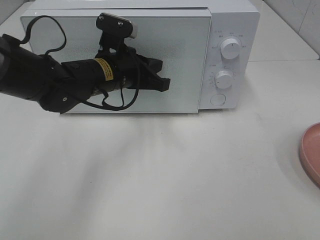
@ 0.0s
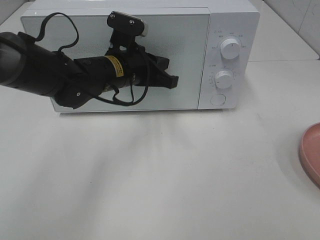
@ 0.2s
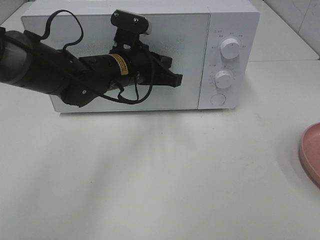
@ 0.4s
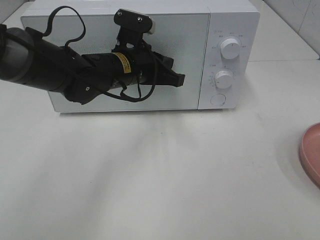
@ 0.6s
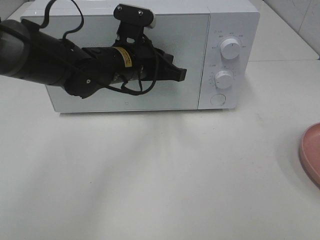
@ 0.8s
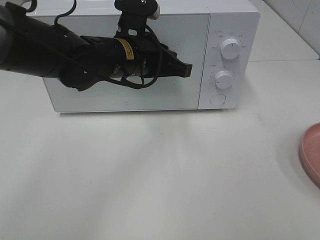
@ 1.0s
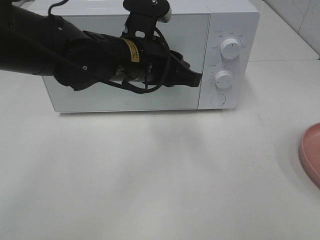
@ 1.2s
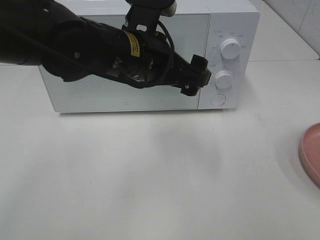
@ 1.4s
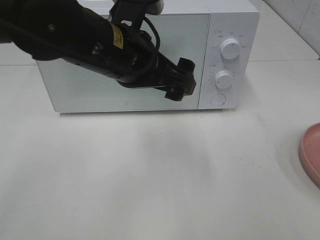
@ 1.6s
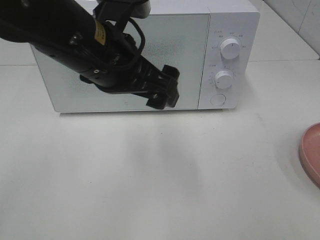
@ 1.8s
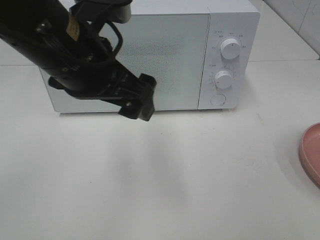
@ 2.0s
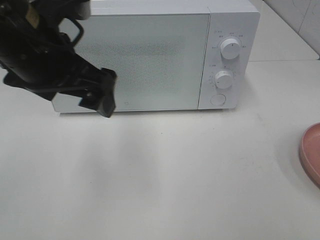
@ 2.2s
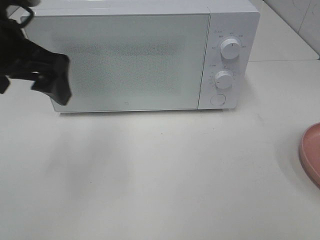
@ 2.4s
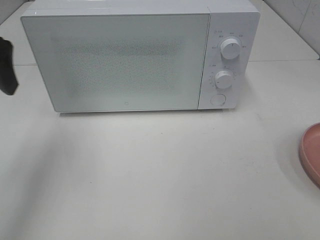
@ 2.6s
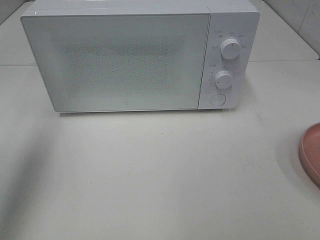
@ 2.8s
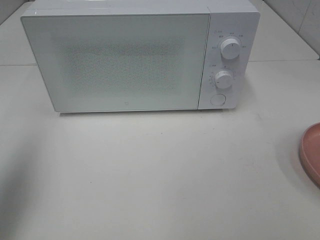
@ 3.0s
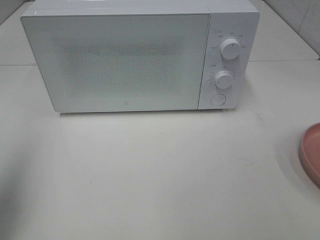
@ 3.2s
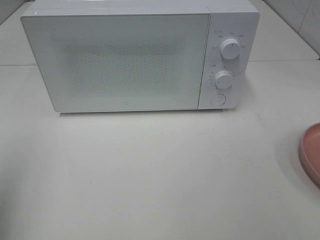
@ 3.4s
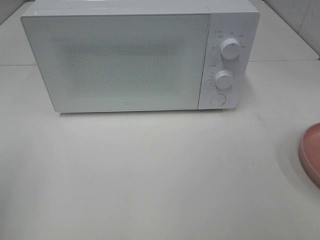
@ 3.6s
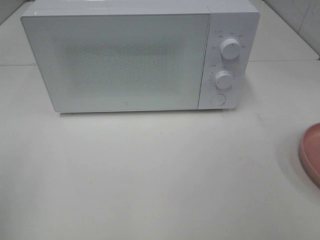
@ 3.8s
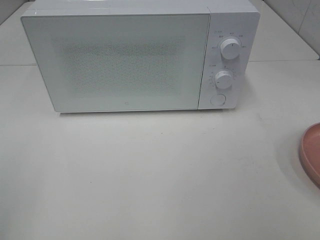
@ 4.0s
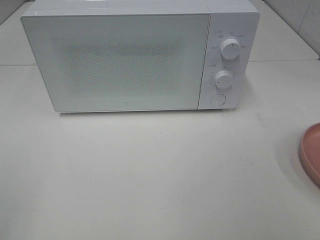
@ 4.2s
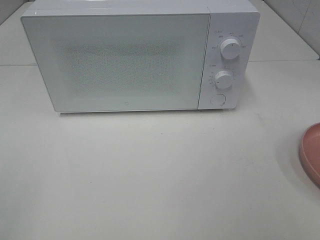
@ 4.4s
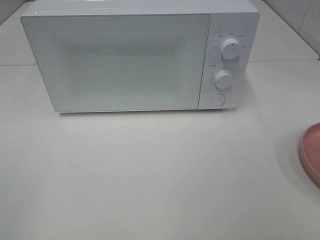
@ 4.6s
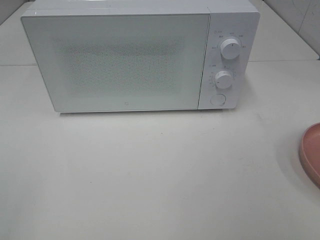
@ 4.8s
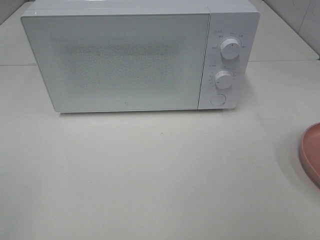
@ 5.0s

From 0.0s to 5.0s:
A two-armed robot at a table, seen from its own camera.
Task of the whole recording: Heat the burger.
From 0.0s to 1.6s: The left gripper goes roughly 15 cm backward and upward, and opens up.
From 1.6s to 3.4s: The left gripper heads to the left and backward, covering some 30 cm.
From 3.4s to 5.0s: The left gripper moves backward, approximately 10 cm.

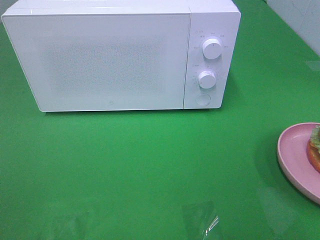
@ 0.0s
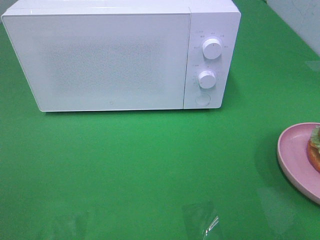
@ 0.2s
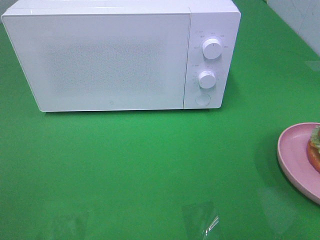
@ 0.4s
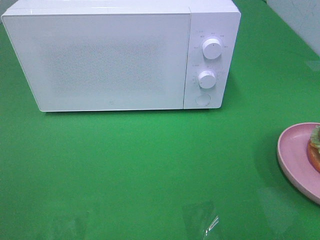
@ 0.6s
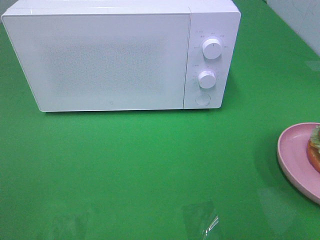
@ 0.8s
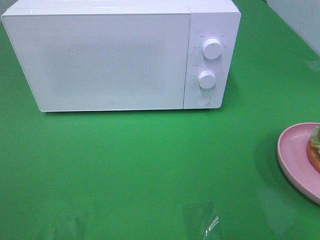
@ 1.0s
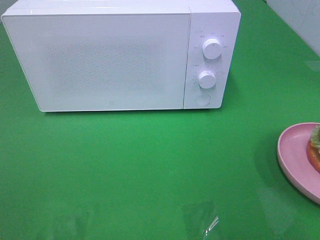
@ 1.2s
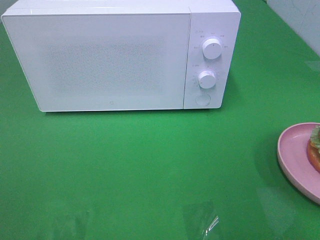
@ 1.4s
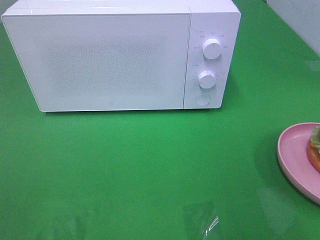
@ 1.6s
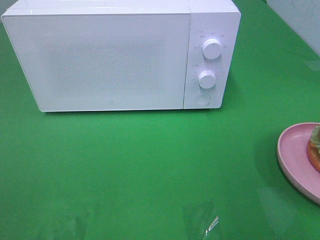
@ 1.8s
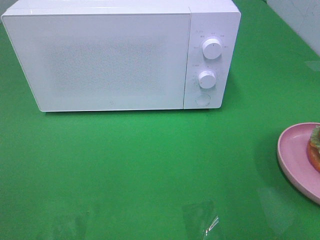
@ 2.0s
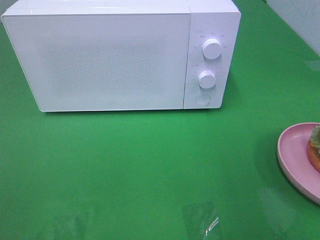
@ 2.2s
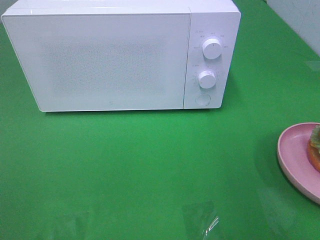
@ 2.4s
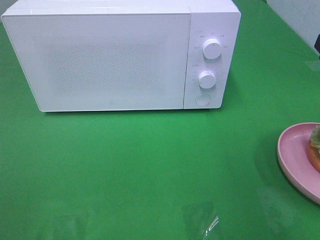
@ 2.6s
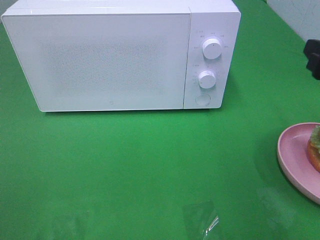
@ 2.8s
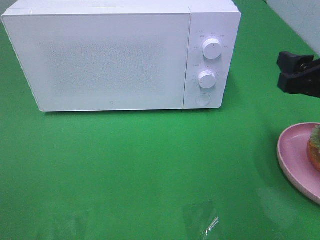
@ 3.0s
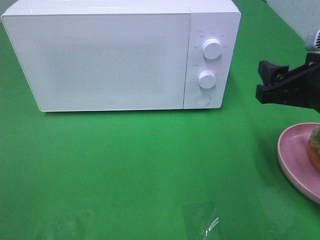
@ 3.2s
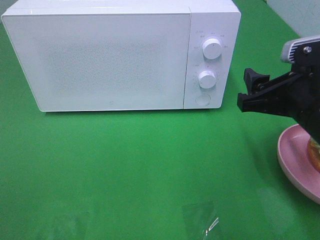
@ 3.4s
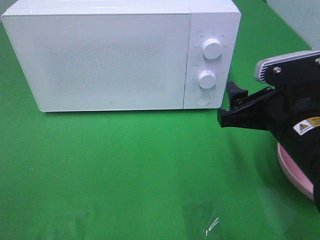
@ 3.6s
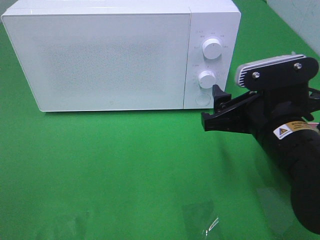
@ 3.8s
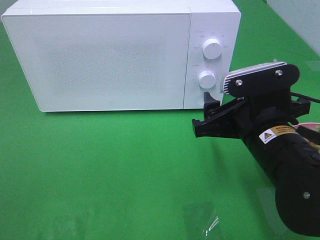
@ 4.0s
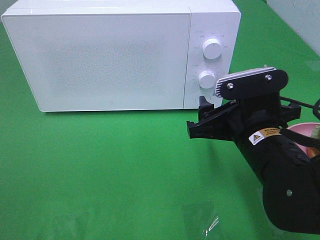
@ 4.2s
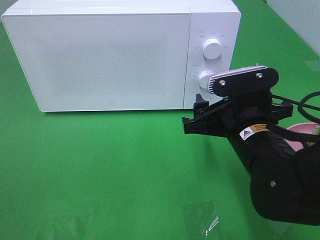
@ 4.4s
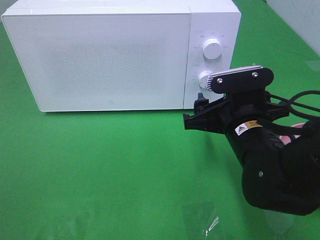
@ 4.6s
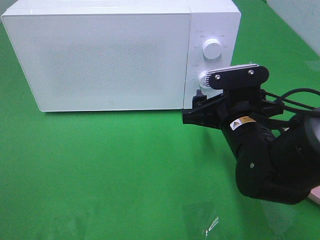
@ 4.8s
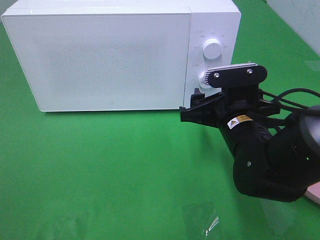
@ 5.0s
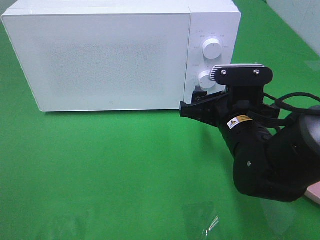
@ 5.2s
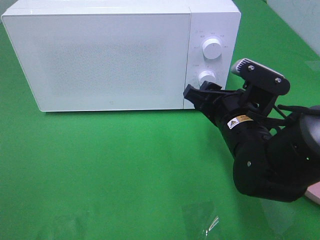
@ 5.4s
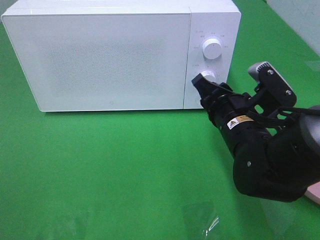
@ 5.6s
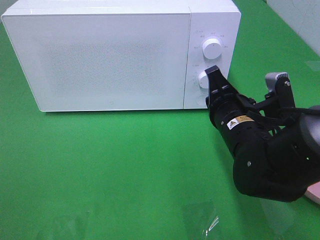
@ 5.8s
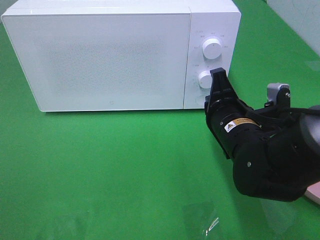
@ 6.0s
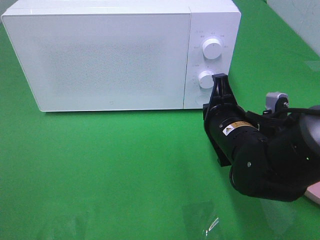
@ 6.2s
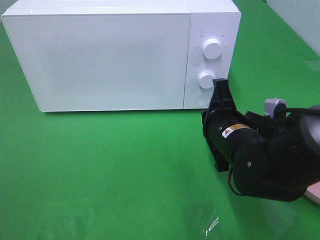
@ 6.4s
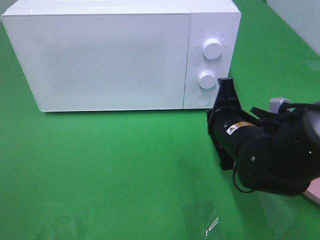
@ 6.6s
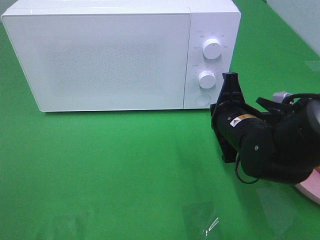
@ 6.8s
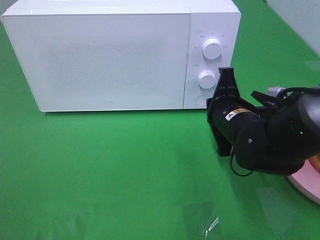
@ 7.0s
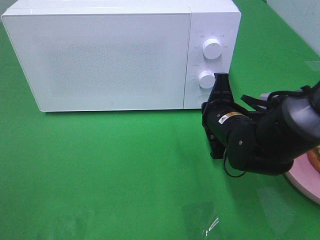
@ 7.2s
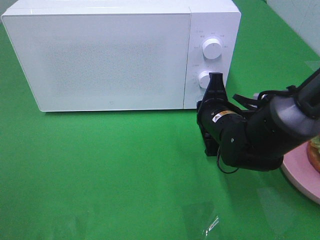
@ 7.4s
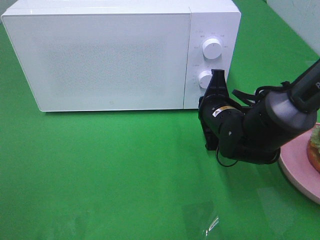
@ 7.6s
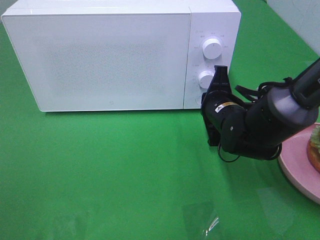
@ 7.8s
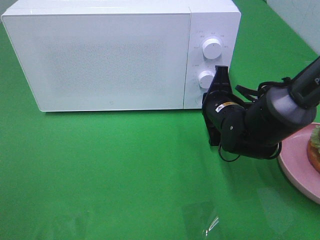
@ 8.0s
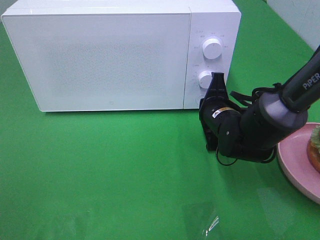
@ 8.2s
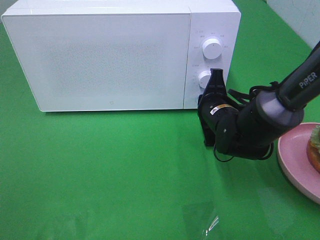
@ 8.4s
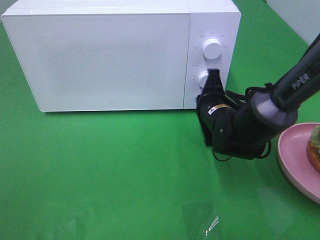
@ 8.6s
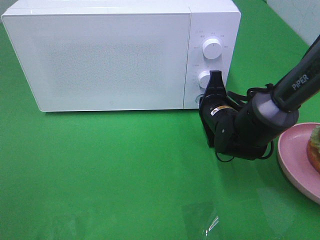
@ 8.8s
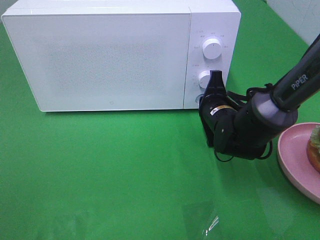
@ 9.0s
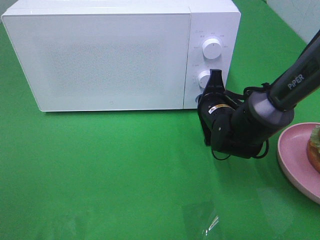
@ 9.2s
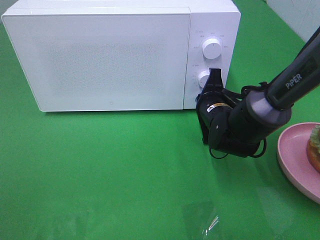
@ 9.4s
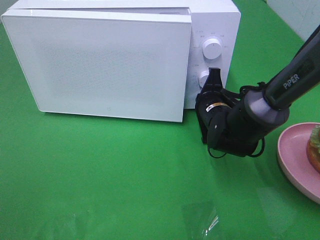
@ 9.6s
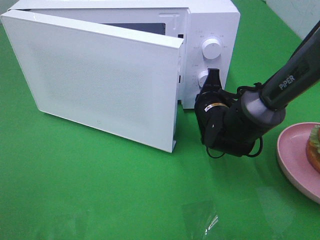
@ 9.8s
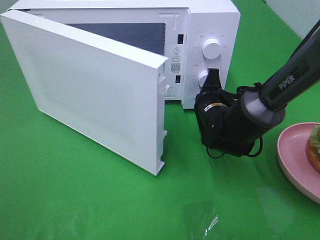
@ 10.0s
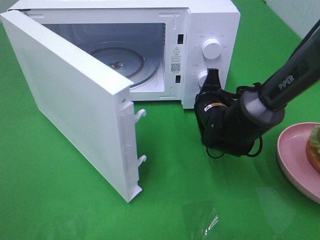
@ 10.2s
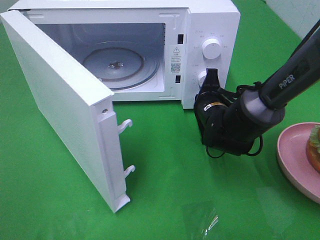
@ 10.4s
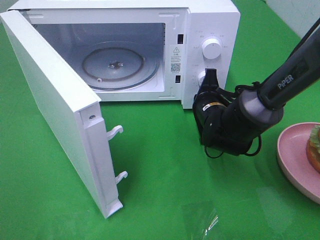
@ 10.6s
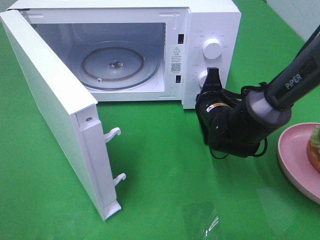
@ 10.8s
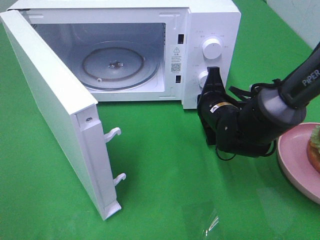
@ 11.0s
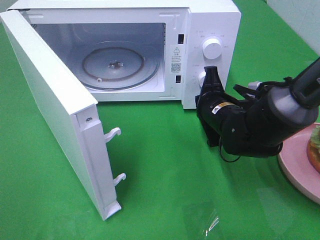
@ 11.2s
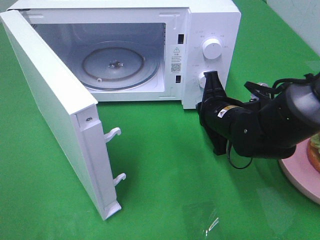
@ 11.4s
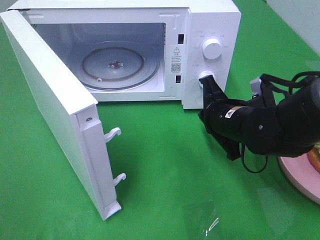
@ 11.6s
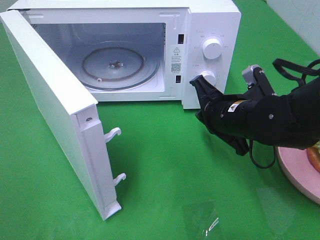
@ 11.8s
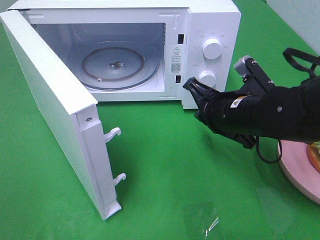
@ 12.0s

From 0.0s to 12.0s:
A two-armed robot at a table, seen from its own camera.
Task of the whole recording: Heat the burger.
Step, from 0.0s to 11.4s: Right hand: press the switch.
From 1.6s to 3.0s: The right gripper moves forward and downward, approximately 15 cm.
From 3.0s to 4.4s: The right gripper shifts some 15 cm to the left and downward.
From 4.4s to 6.0s: The right gripper closes.
From 6.0s to 7.6s: The right gripper heads forward, covering roughly 5 cm.
From 7.6s to 9.0s: The grippers move only a little.
From 10.4s to 12.0s: The right gripper heads backward and upward, covering some 10 cm.

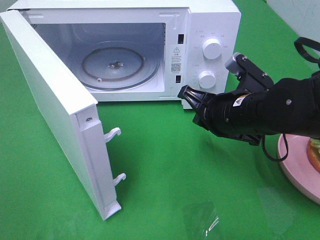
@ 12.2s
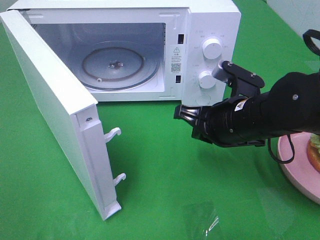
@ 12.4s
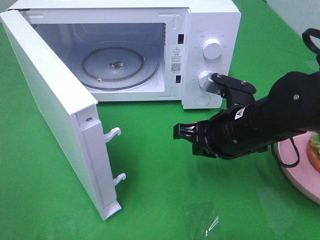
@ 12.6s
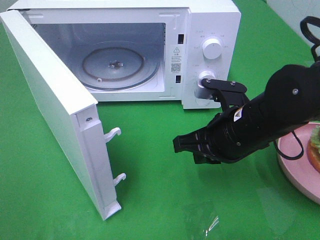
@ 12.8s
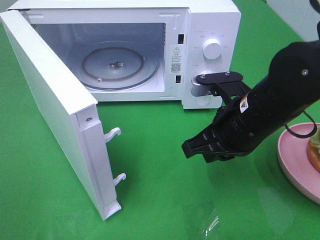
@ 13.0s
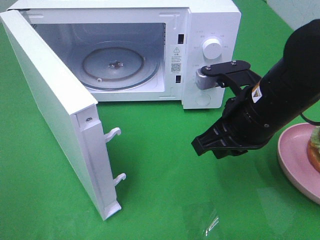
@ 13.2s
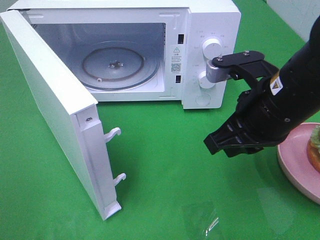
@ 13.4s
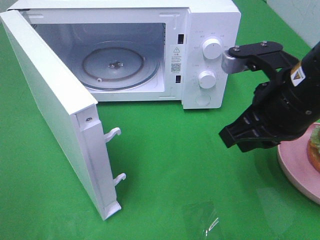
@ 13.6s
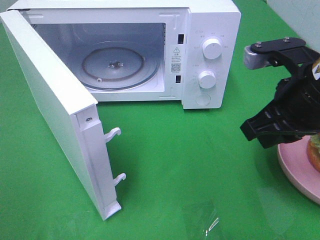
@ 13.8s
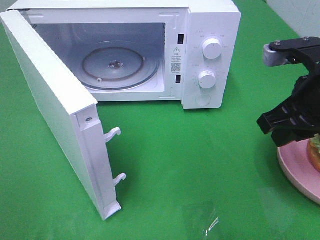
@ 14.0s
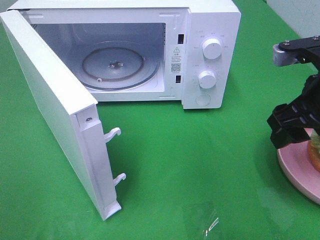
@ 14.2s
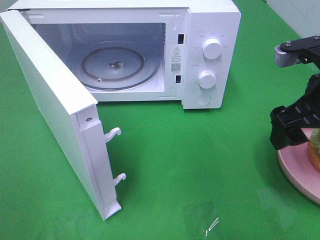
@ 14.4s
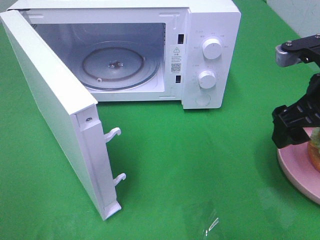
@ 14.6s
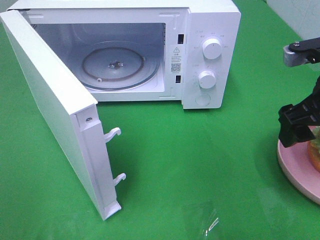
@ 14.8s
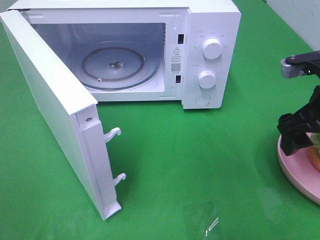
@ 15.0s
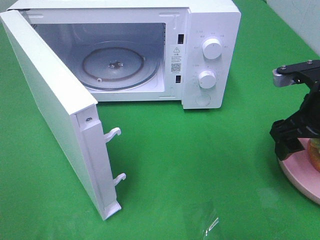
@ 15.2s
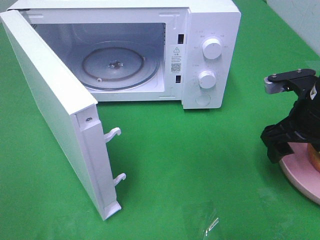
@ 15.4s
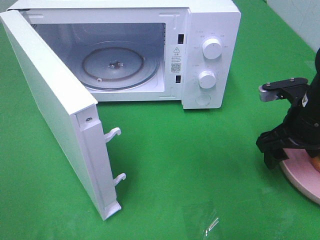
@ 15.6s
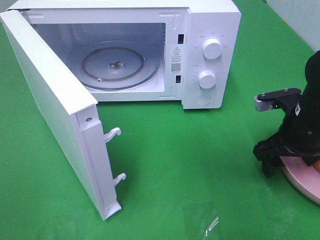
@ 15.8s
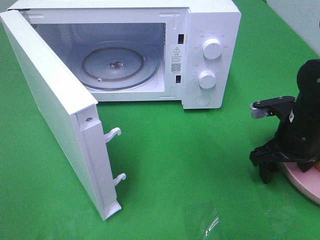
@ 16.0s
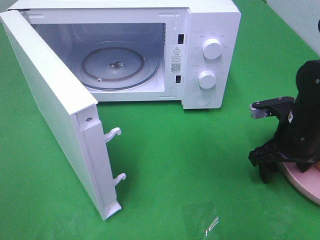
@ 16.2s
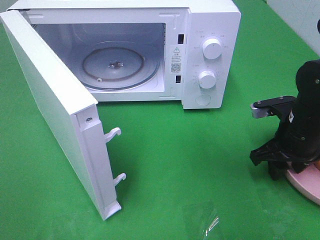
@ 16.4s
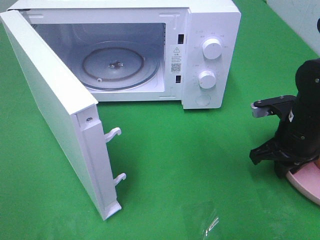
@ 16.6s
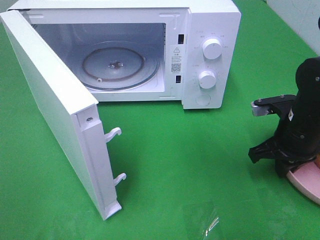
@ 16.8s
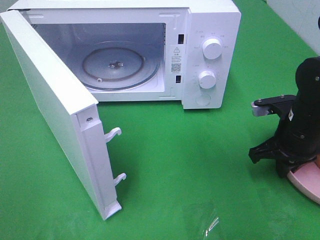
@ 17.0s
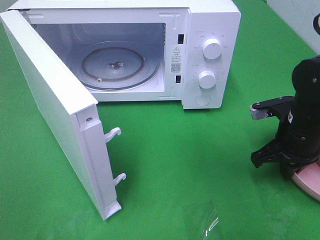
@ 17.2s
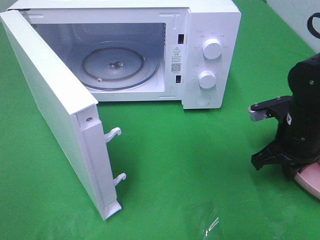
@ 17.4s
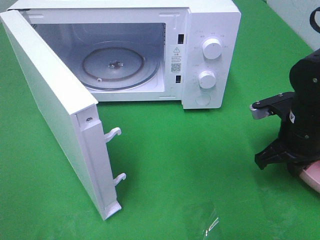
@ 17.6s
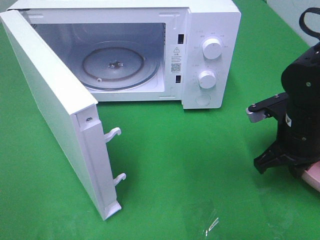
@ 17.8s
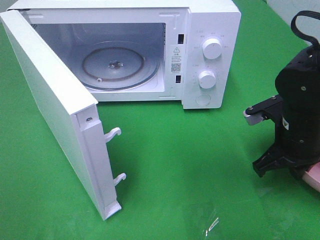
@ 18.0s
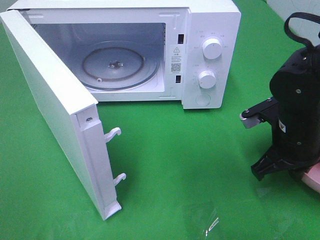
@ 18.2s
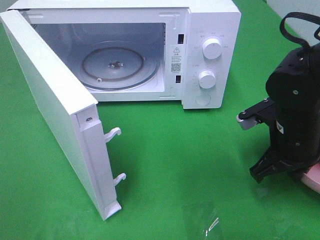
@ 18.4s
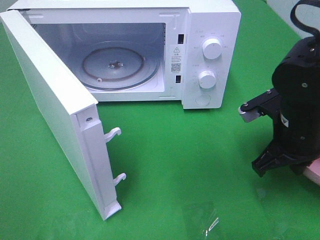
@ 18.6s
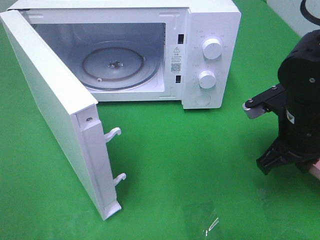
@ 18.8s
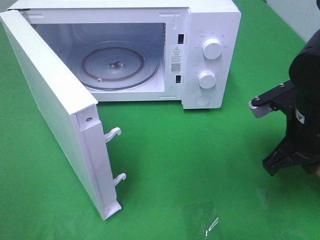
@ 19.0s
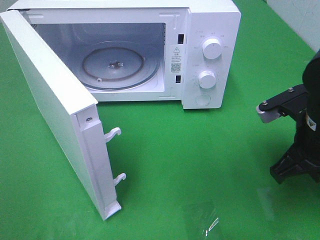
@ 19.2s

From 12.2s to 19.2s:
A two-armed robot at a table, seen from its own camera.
Task of the whole recording: Heat the burger.
Step, from 12.2s to 16.6s: Right hand: grab the plate with the hamburger.
From 12.2s to 13.6s: The right gripper is displaced upward by about 10 cm.
From 13.6s to 15.0s: The right gripper shifts some 10 cm to the right, and opens.
From 15.0s to 16.4s: The right gripper shifts roughly 10 cm downward, and closes.
From 16.4s to 17.8s: The right gripper closes.
From 17.8s to 19.2s: The right gripper moves about 5 cm.
